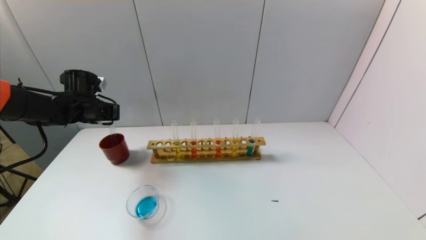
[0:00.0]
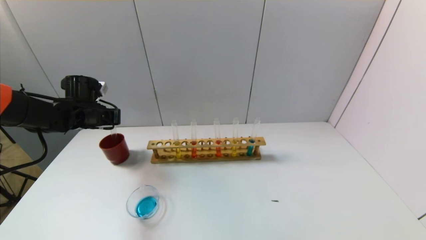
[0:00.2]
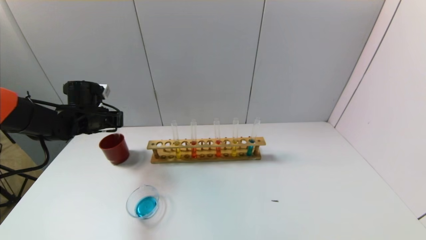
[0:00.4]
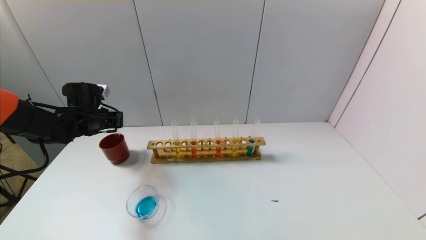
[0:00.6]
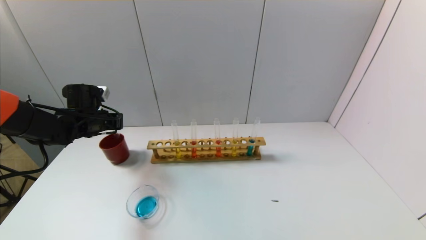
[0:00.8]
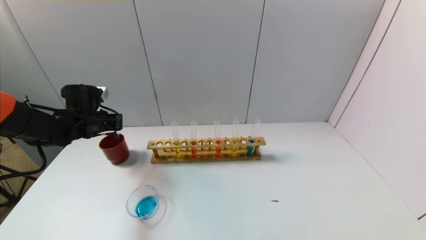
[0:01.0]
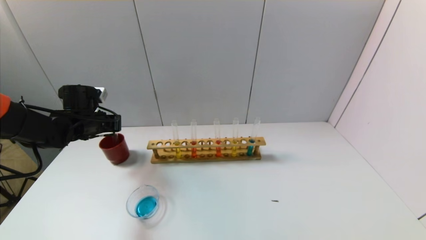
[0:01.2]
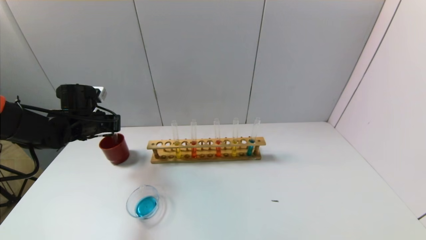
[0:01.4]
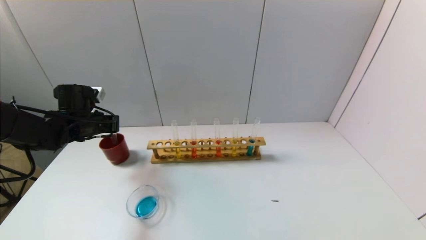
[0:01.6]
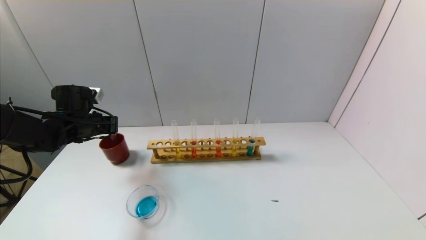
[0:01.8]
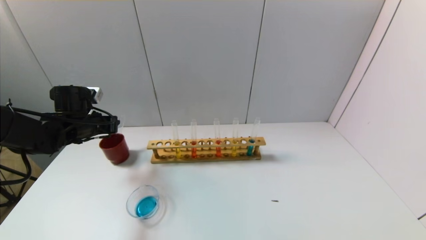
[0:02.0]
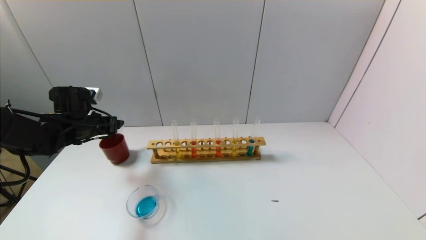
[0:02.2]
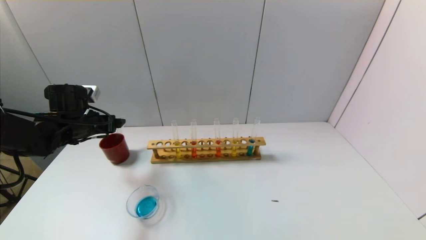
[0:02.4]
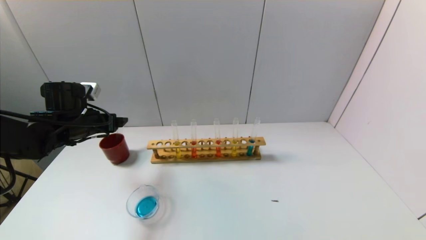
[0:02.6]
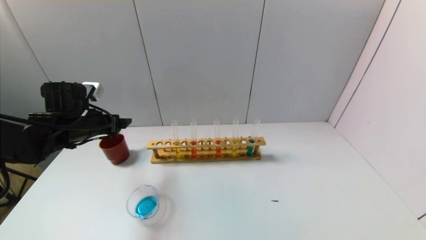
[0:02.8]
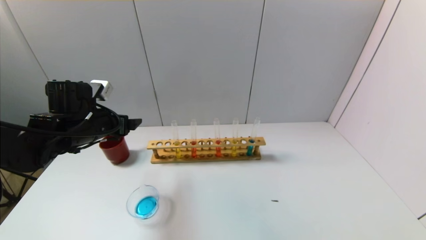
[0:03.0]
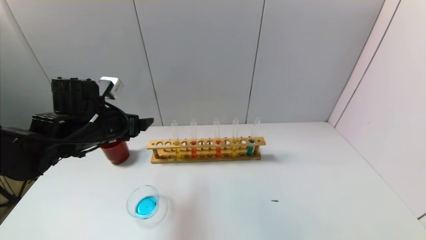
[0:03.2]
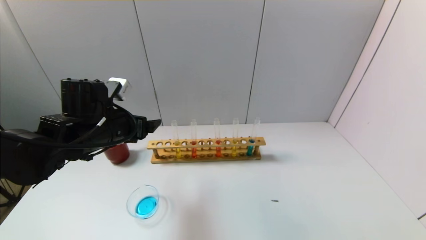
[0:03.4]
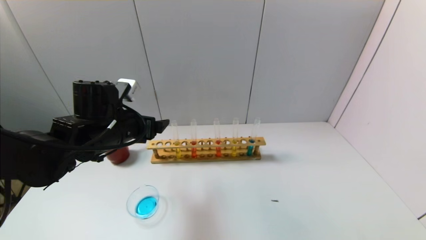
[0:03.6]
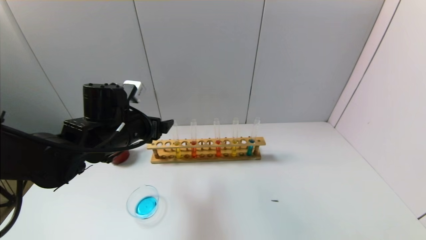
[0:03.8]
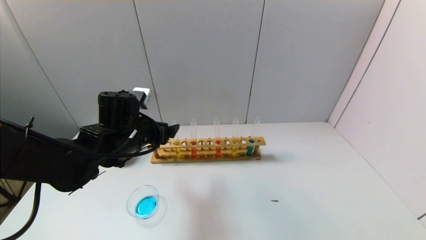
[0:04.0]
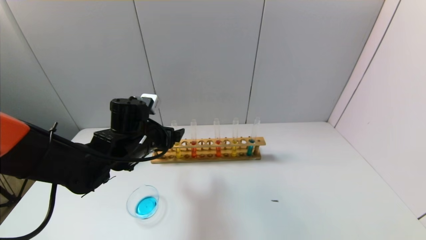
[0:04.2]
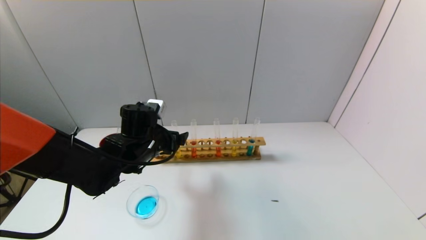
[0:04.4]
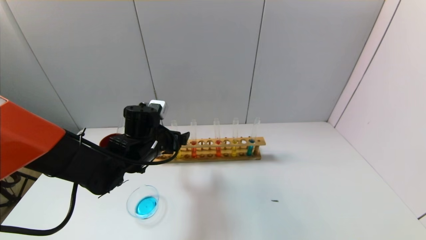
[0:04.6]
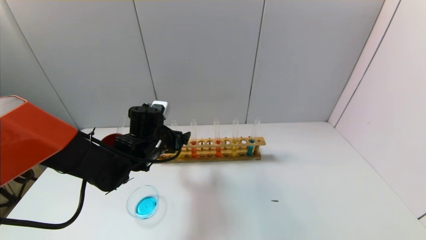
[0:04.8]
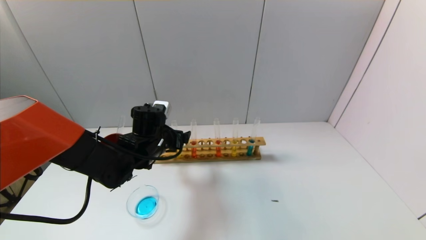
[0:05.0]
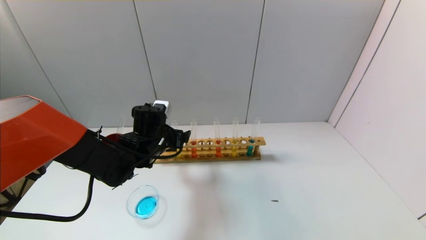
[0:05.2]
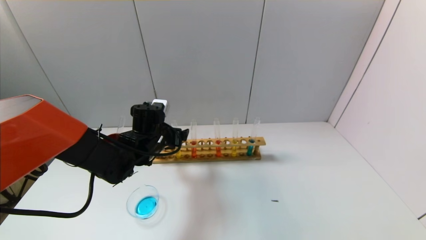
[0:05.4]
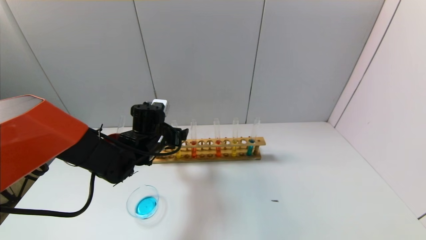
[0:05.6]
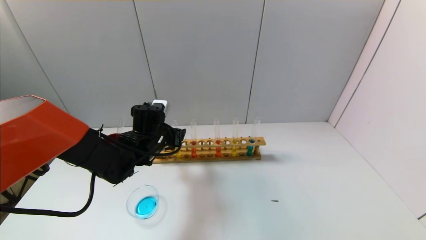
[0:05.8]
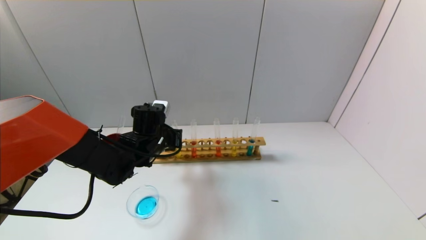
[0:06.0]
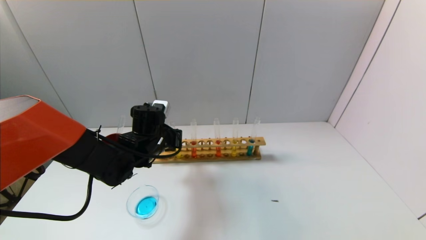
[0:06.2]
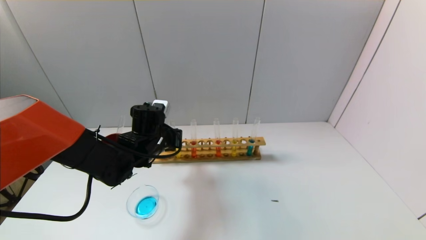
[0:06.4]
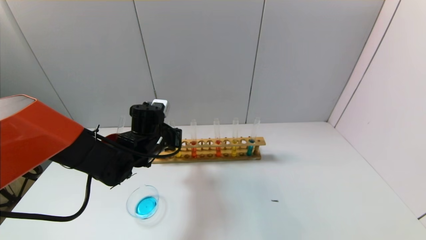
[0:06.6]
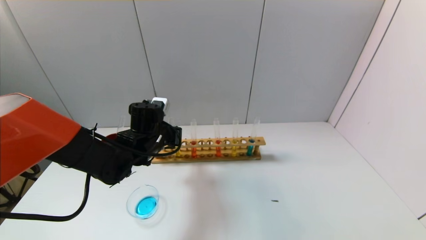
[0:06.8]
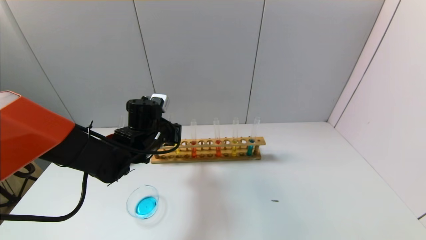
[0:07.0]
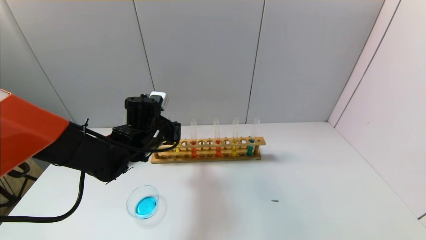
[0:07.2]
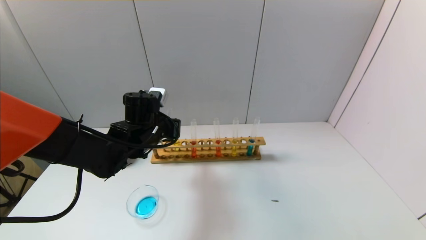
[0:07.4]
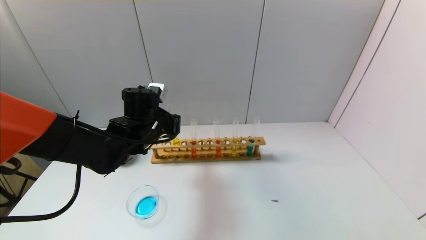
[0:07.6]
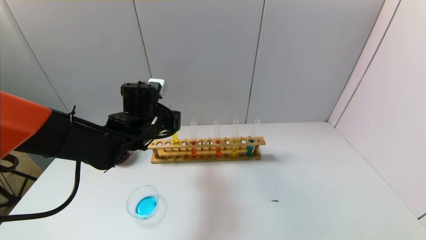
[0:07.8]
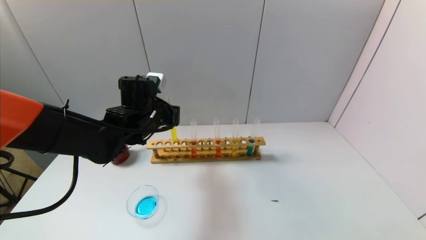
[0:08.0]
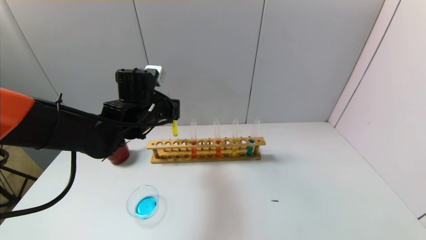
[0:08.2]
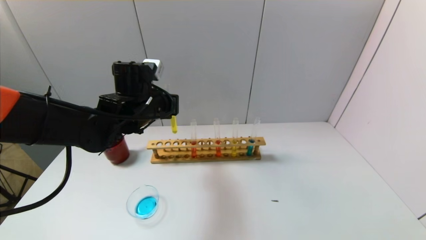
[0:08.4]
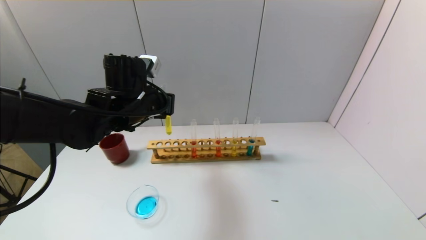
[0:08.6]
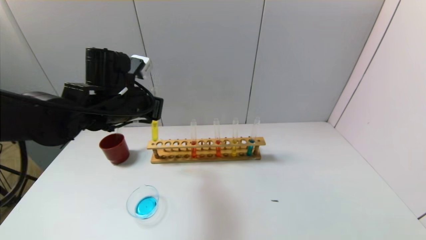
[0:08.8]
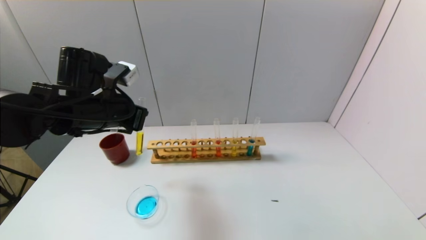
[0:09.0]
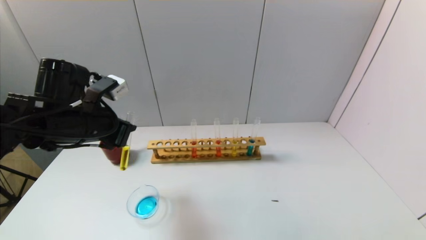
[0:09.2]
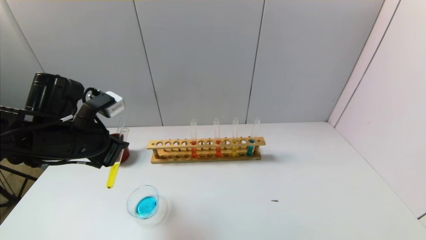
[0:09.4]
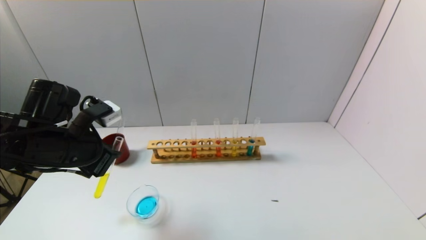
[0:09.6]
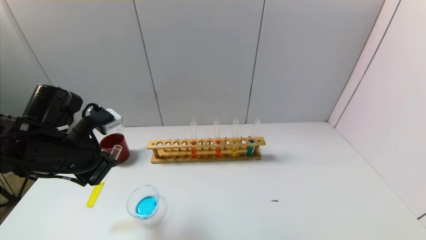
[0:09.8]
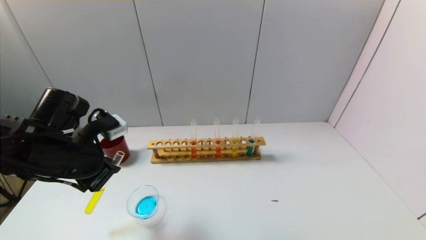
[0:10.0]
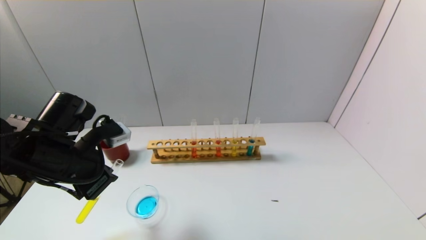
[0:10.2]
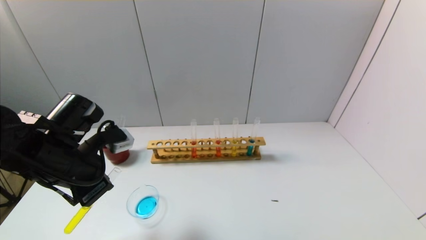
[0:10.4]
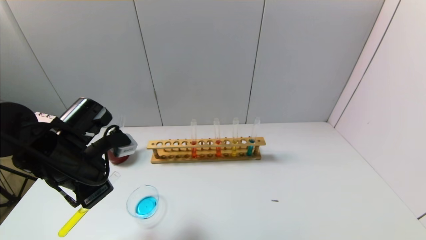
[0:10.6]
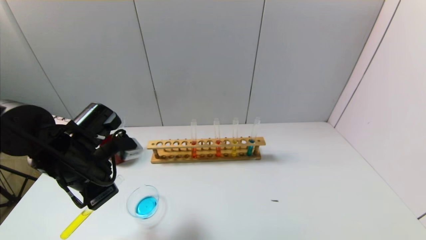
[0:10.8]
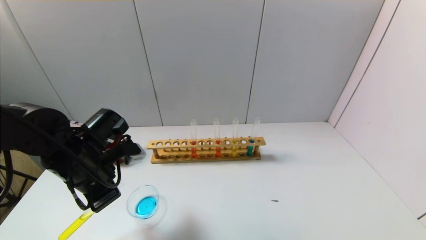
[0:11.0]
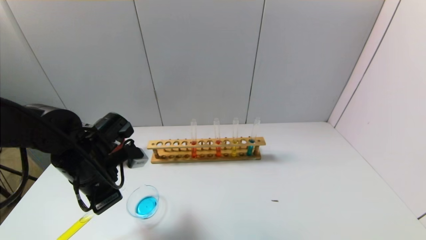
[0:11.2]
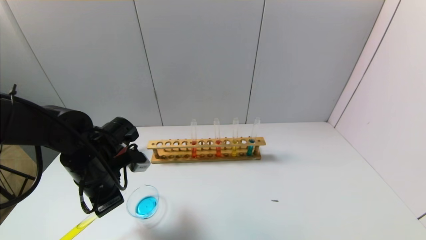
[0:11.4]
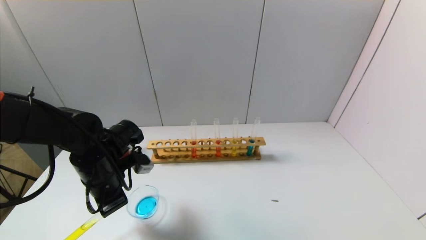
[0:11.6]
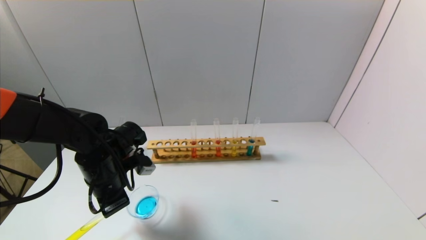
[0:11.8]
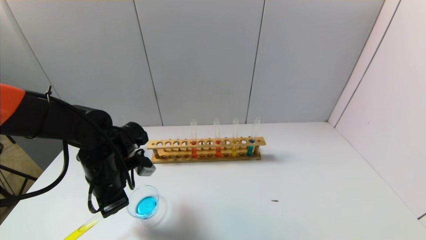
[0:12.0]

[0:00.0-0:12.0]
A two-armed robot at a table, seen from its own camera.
Task of the whole recording: pick up the test tube with yellow pigment and the test tube with blue pigment by grippers and pour them into the beaker.
Step, 0:00.0 to 0:03.2: Place the test tube into the brown cup with the left gripper.
Step, 0:03.4 to 0:06.4: Grasp the yellow reagent with the left gripper.
0:00.0 to 0:01.6: The grippers stay close to where they were, moving slightly.
0:01.6 to 0:03.0: The left gripper is displaced backward and to the right by about 10 cm, and opens.
0:03.0 to 0:04.4: The left gripper goes about 10 cm to the right and downward.
0:04.4 to 0:06.0: The left gripper closes.
0:06.0 to 0:07.6: The grippers stay close to where they were, moving slightly.
0:07.6 to 0:09.0: The left gripper is displaced upward, to the left and backward by about 10 cm.
0:09.0 to 0:10.4: The left gripper travels backward by roughly 5 cm.
0:10.4 to 0:12.0: The left gripper is displaced downward by some 5 cm.

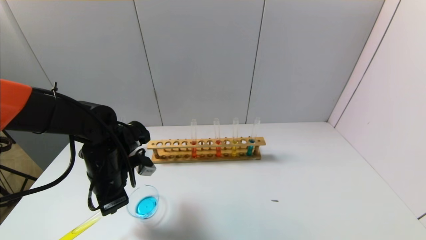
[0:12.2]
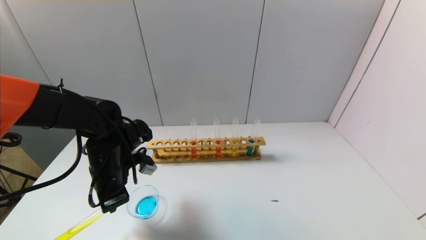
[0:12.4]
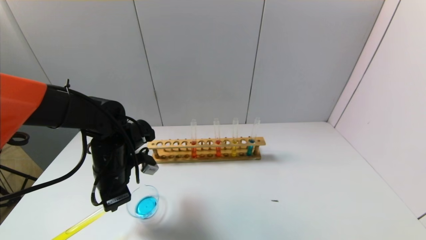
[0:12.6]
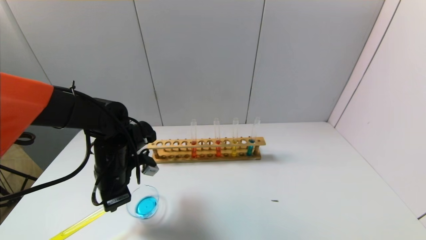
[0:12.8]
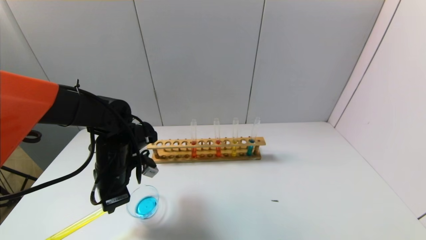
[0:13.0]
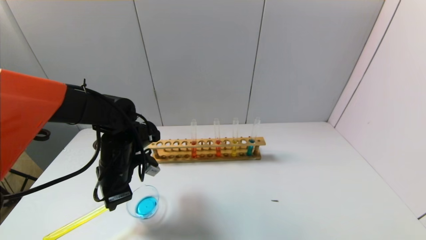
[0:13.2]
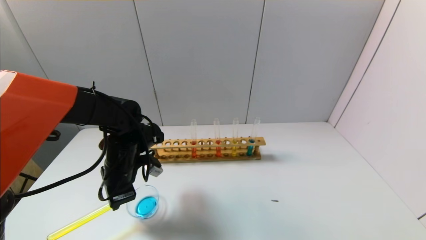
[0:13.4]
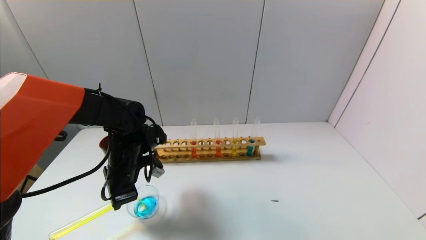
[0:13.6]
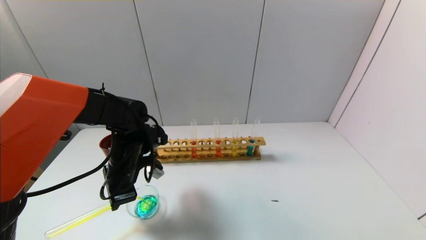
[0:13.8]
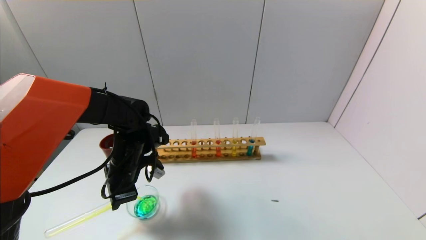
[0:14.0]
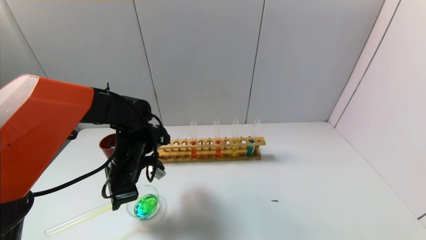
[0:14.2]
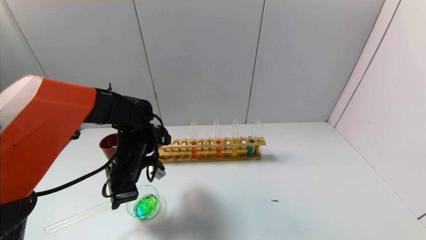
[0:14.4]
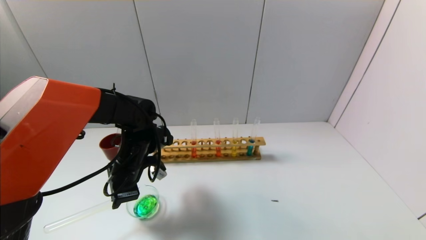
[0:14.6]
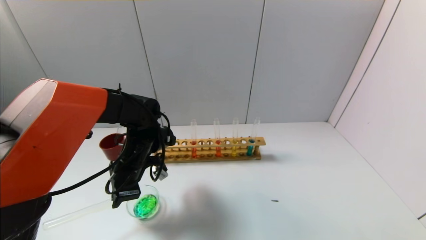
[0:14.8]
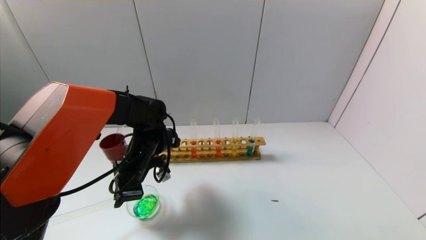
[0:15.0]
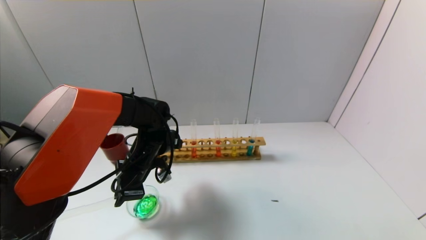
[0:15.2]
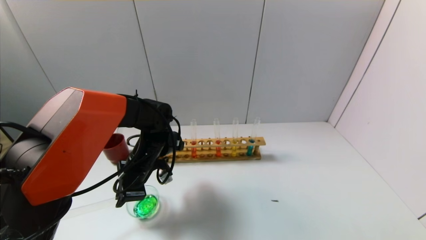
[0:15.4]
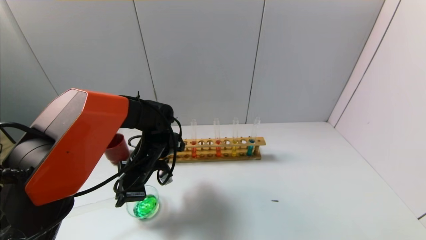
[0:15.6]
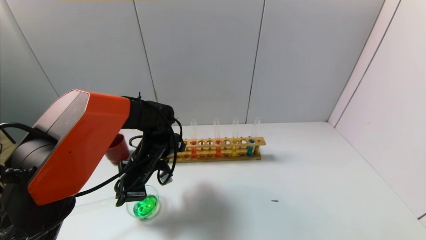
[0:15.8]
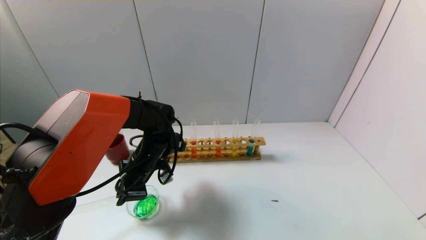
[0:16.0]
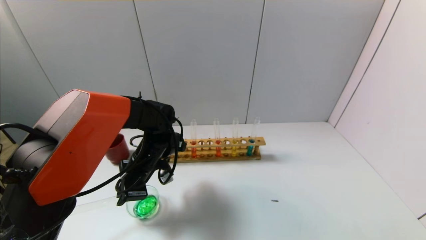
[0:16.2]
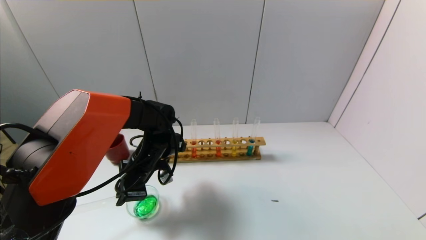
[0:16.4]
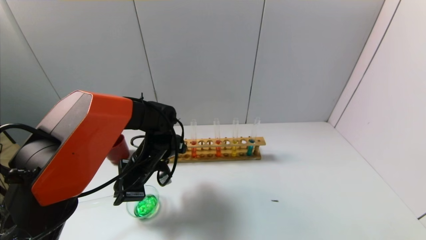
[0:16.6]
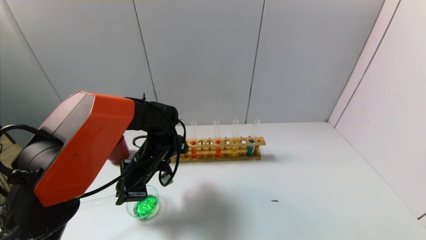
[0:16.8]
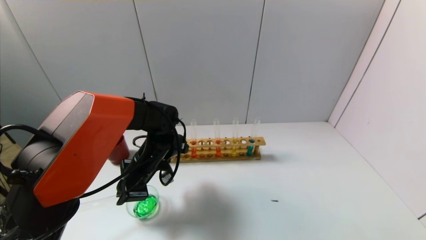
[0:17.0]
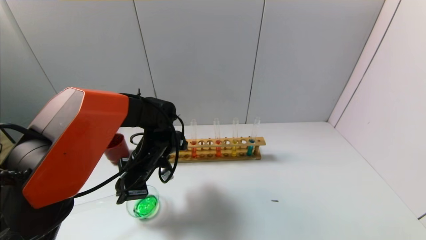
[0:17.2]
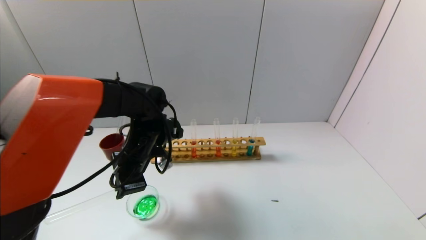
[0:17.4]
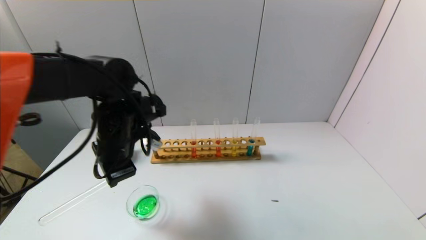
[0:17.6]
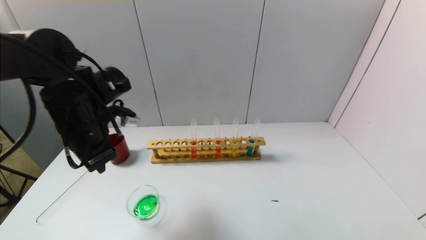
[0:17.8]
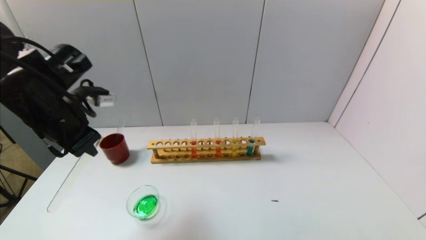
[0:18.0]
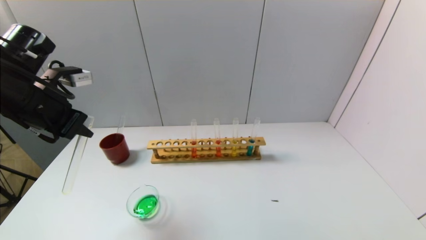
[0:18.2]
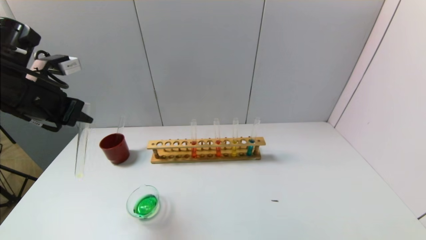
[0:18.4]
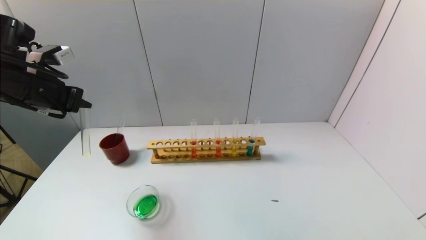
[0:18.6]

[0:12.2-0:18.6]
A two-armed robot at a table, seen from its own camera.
Task of the whole recording: pick up the test tube with yellow pigment and the test tube with blue pigment by grippers and pour them into the beaker.
Step, 0:12.2 to 0:17.4: Pour the yellow reagent into the graduated cylinder with the left gripper.
0:12.2 to 0:13.8: The grippers move only a little.
0:13.8 to 0:17.0: The grippers stay close to where they were, moving slightly.
0:17.0 to 0:18.6: The left gripper moves upward and to the left, some 25 cm.
